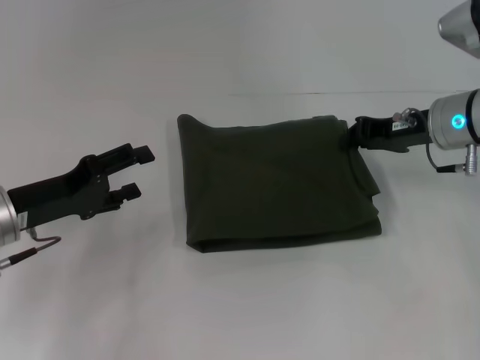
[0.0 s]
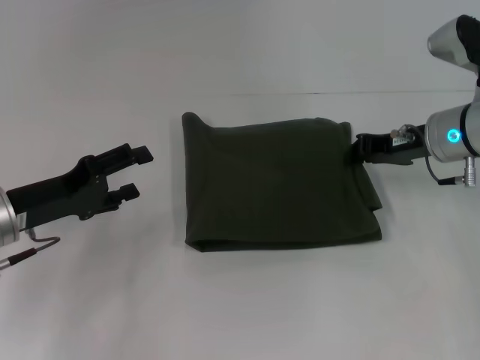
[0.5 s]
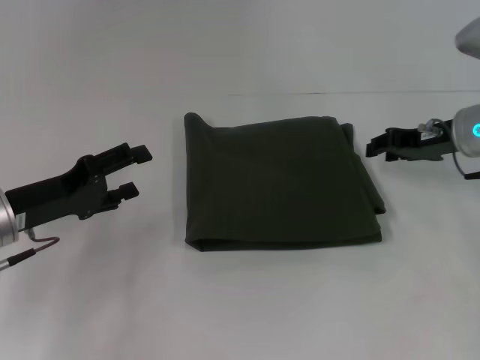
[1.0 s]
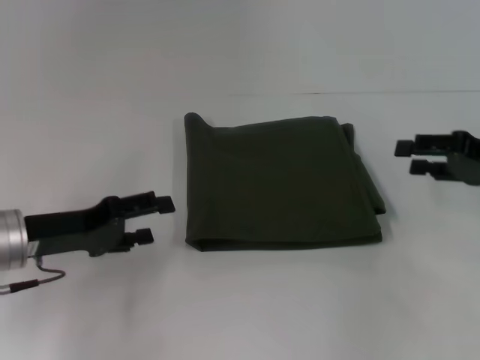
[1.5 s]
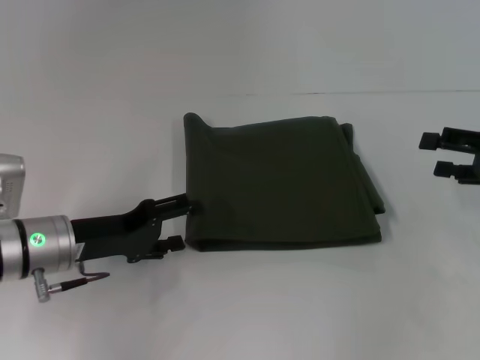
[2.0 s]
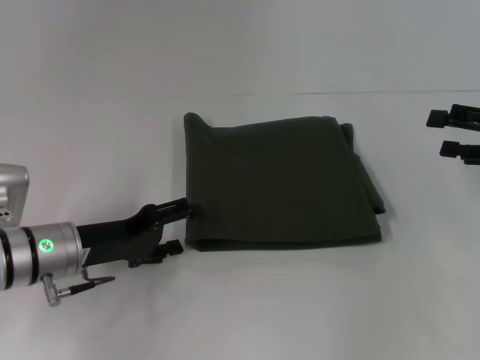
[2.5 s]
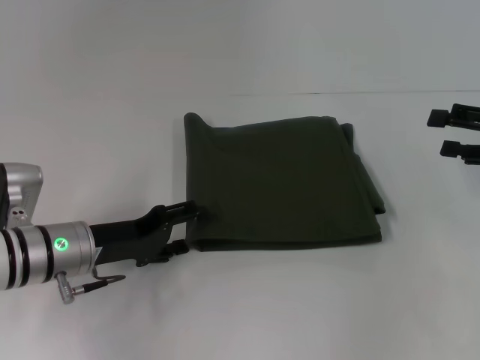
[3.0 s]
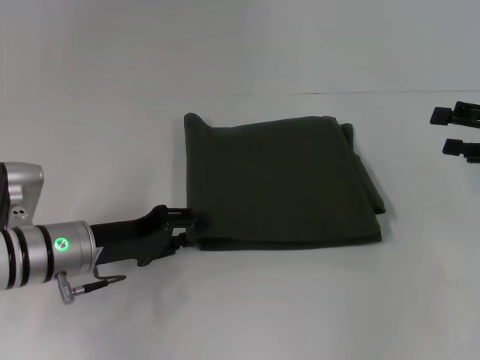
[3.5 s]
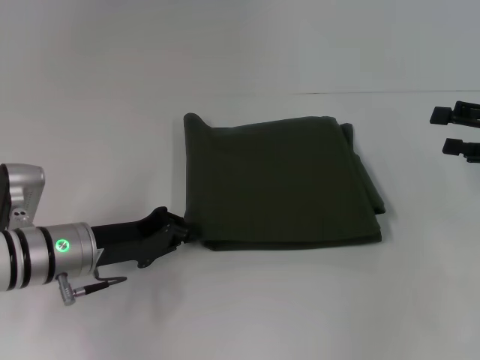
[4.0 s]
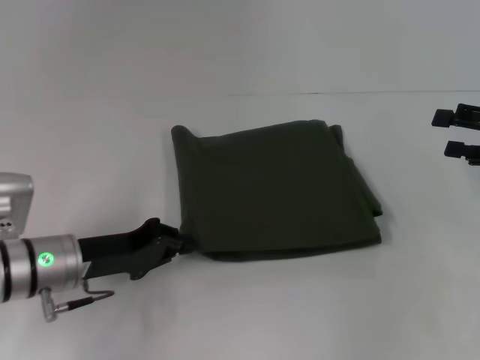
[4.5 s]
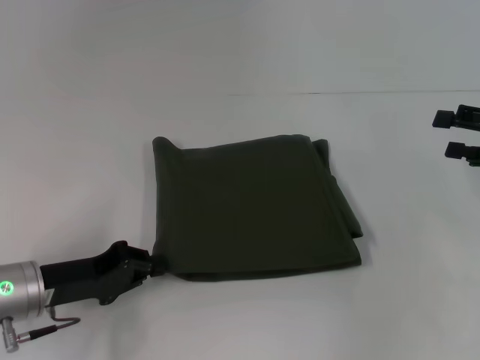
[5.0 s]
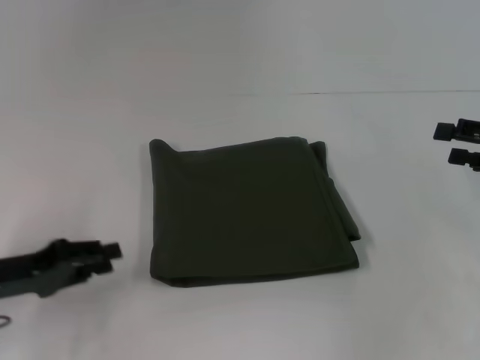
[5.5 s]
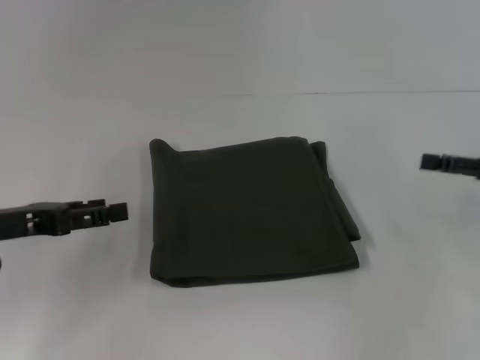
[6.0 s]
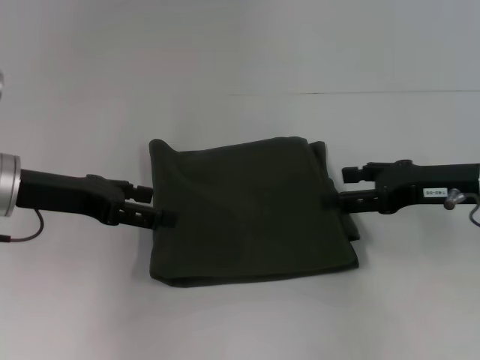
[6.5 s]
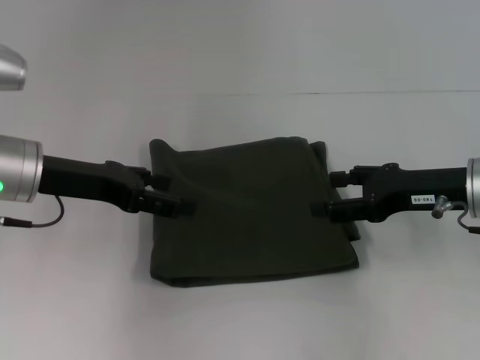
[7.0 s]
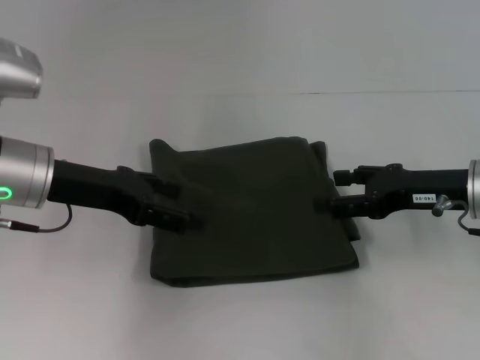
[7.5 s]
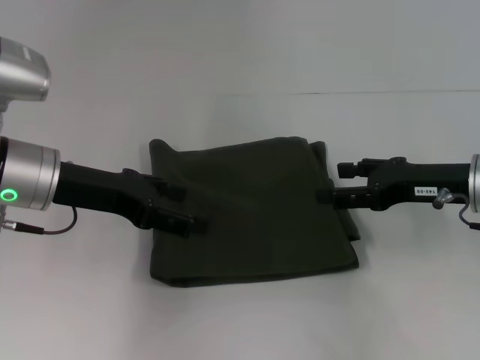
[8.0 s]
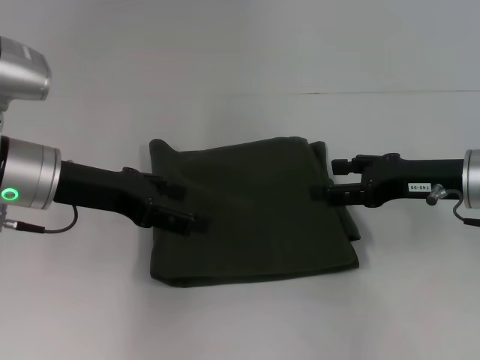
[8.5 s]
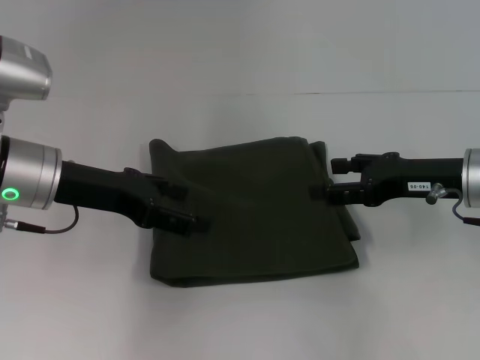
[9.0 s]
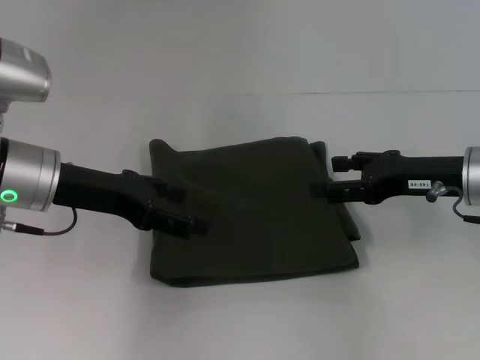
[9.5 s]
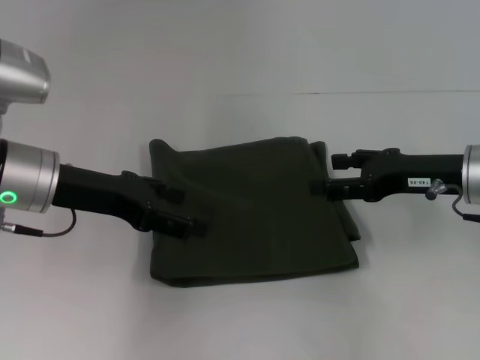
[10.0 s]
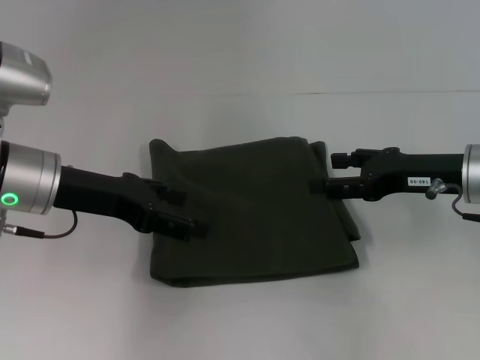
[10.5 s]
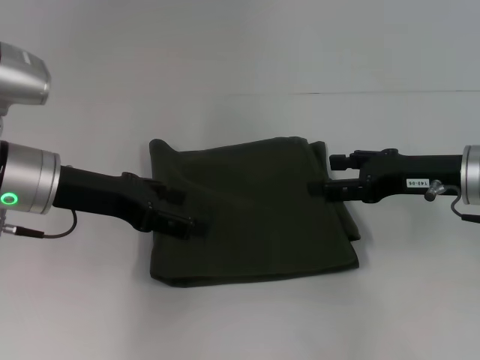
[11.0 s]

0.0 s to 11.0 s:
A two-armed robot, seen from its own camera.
0.0 to 2.0 s: The left gripper shifts by some 5 cm; the right gripper is displaced to the right and backward by approximately 15 cm, and opens.
2.0 to 3.5 s: The left gripper closes its fingers.
3.5 to 5.5 s: The left gripper moves to the left and backward, some 10 cm.
5.5 to 7.5 s: The left gripper travels forward, upward and to the right by about 15 cm, and opens up, while the right gripper moves to the left, about 10 cm.
7.5 to 11.0 s: Neither gripper changes place.

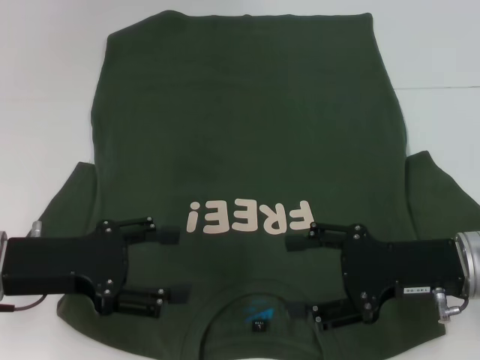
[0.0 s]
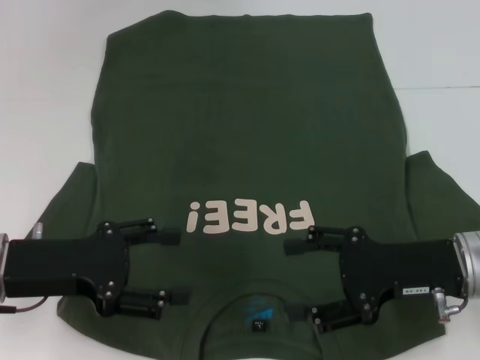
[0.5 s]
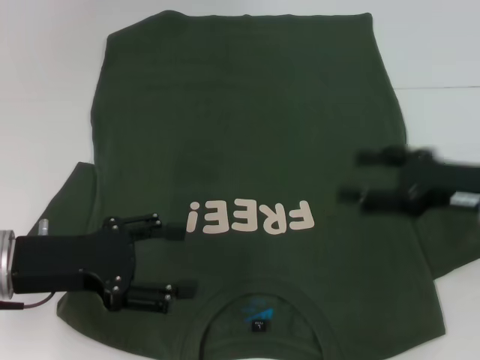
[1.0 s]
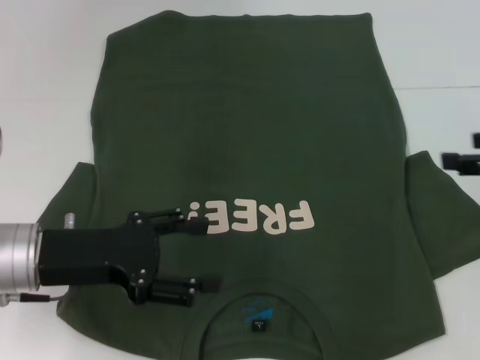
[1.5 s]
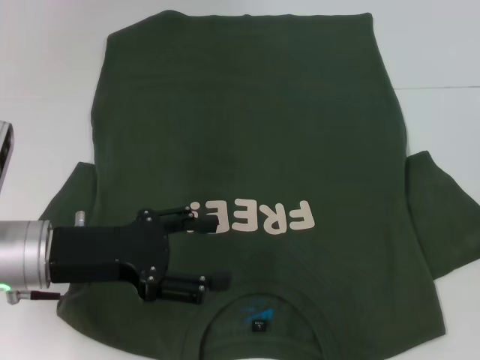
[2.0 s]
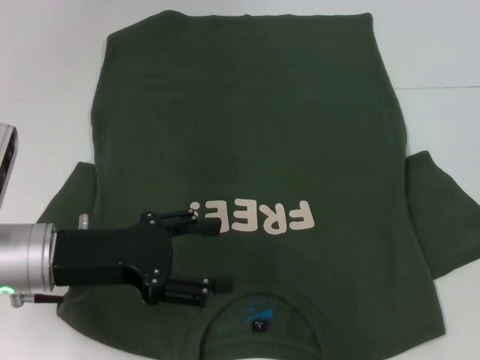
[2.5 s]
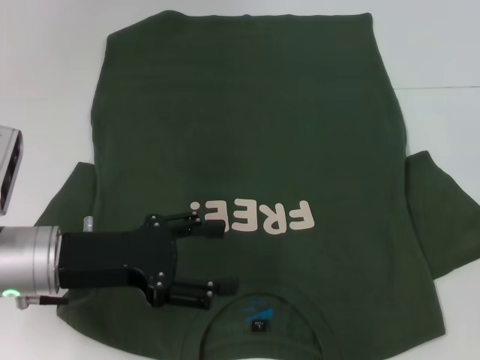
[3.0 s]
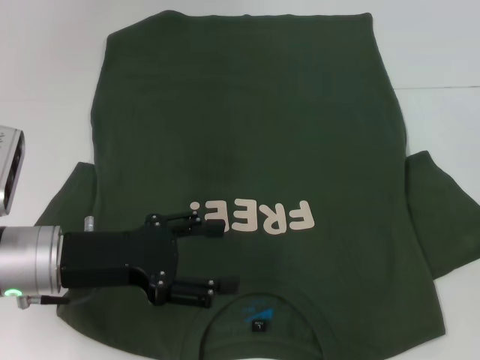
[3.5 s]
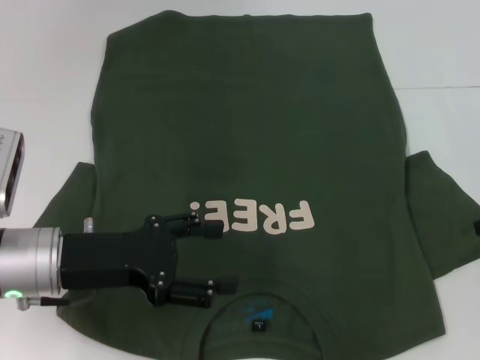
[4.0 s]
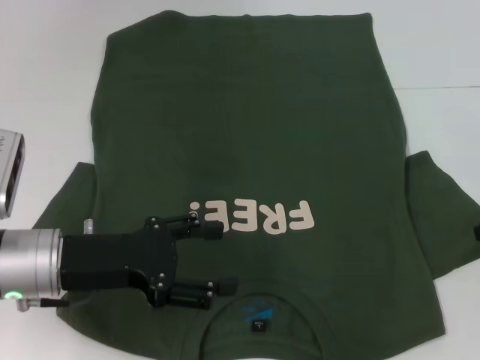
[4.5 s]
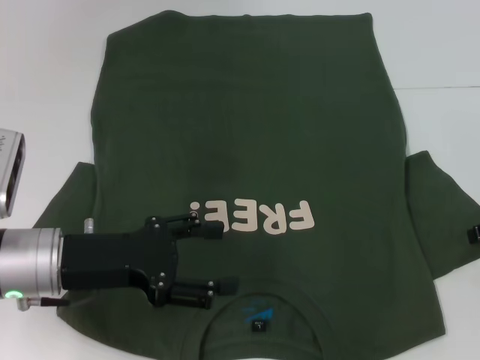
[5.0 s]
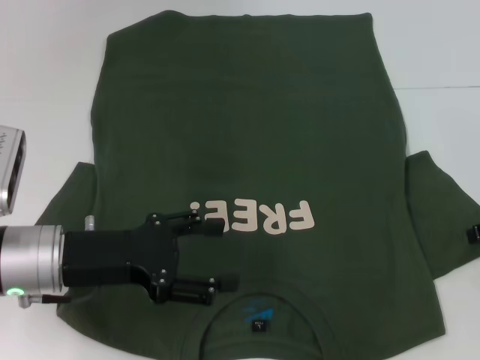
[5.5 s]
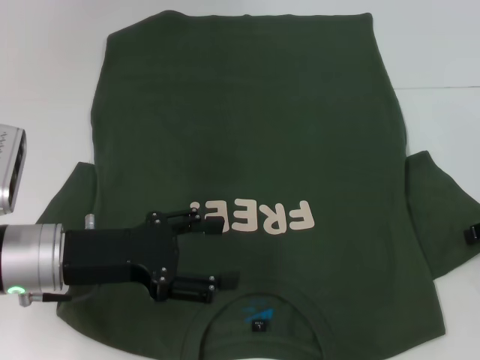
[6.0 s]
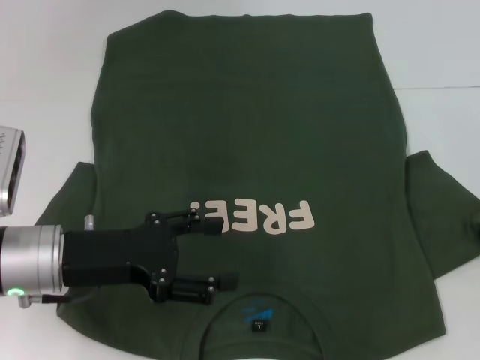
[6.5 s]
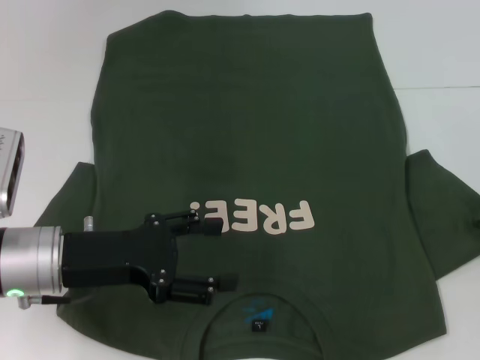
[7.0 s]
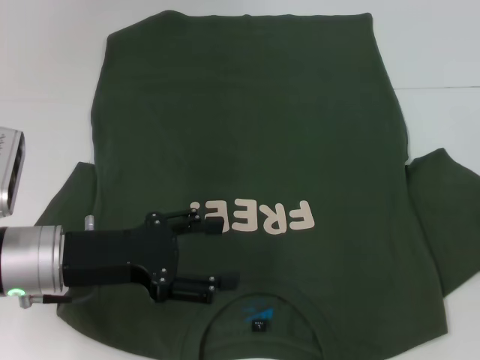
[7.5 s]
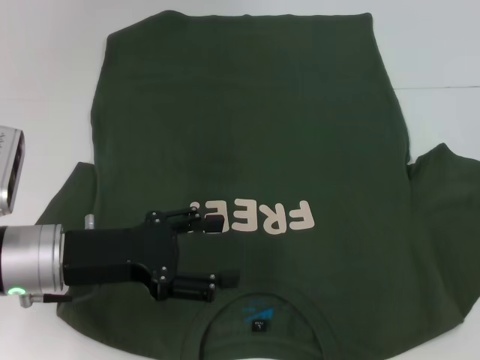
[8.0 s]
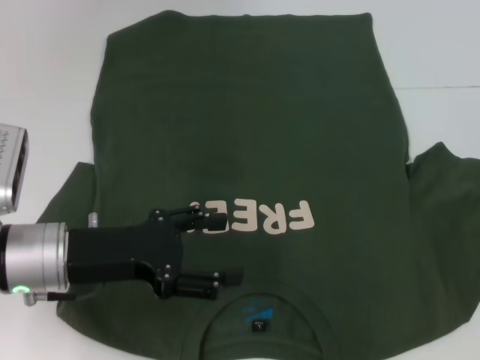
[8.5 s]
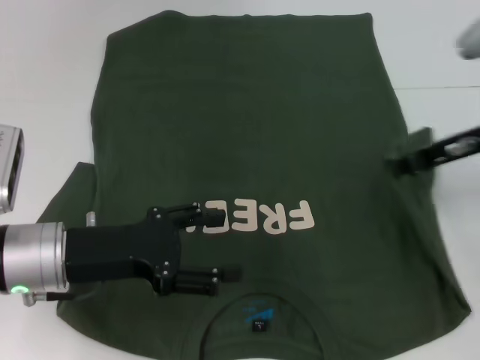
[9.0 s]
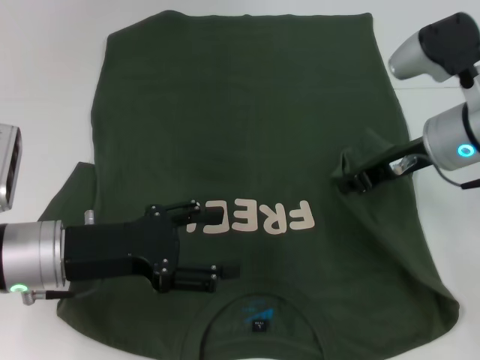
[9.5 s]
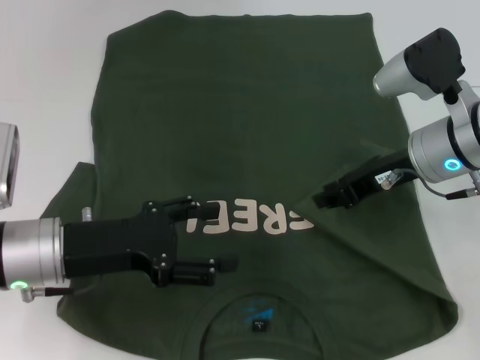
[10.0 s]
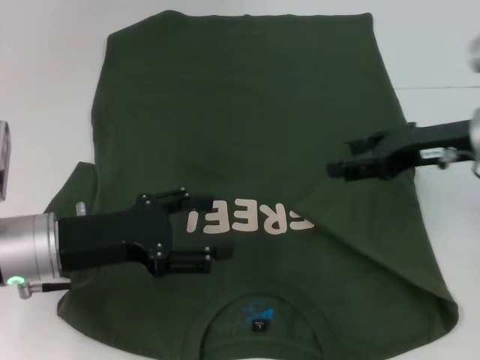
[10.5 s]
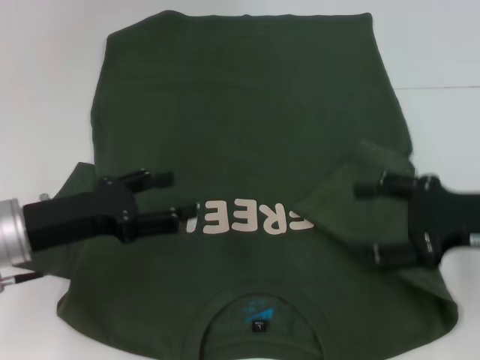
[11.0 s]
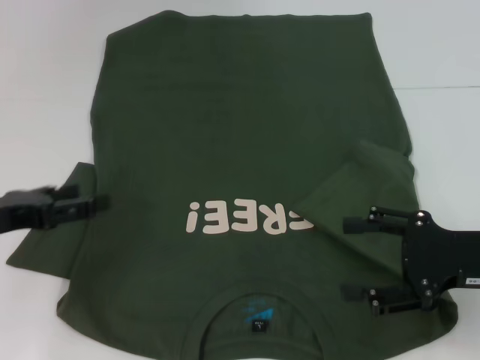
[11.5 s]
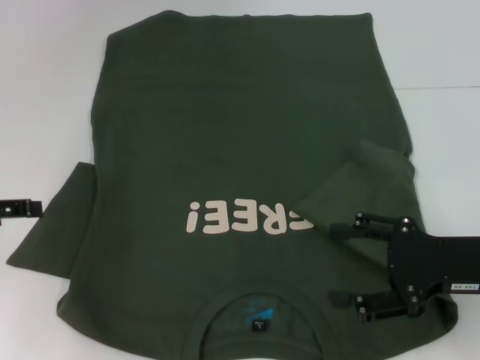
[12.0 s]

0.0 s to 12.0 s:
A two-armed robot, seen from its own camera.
Step, 0.0 to 10.5 s: Fold the bottom right sleeve with your right hand.
0.0 to 2.0 s: The right gripper heads to the right and upward, covering some 15 cm.
4.0 to 6.0 s: Both grippers stay about where they are.
6.0 to 8.0 s: The right gripper closes.
8.0 to 10.0 s: The right gripper goes about 20 cm to the left.
10.0 to 12.0 s: The left gripper shifts about 15 cm to the left and upward. Meanwhile the right gripper moves backward and to the right, approximately 15 cm, and opens its fingers.

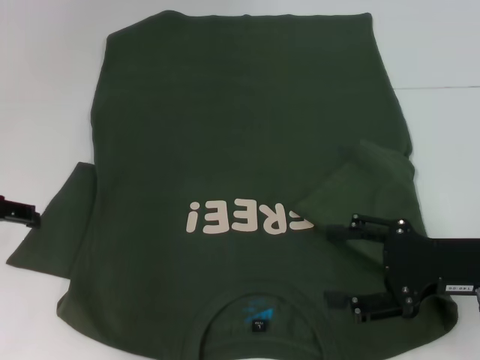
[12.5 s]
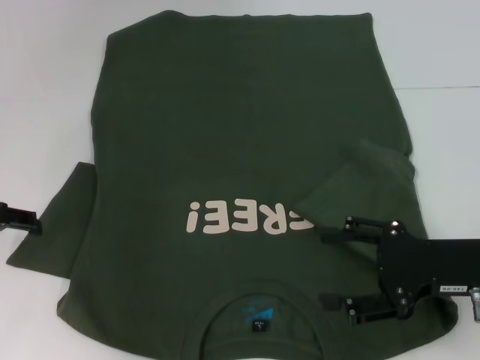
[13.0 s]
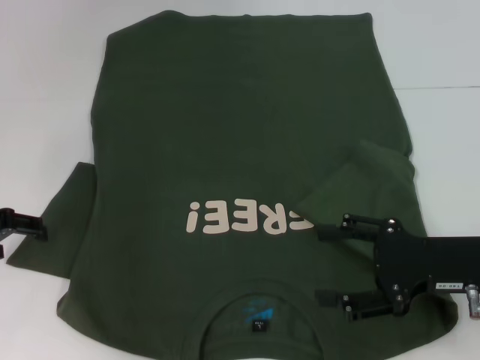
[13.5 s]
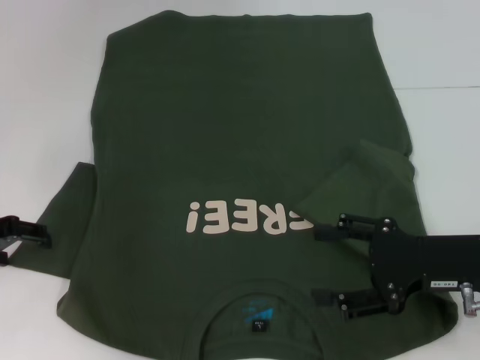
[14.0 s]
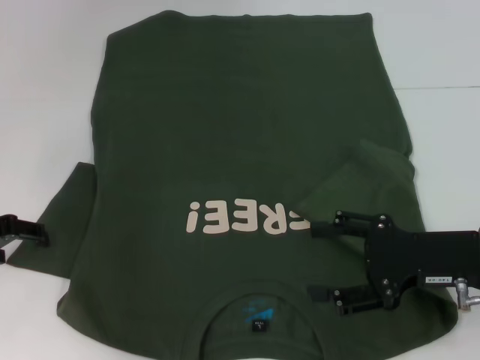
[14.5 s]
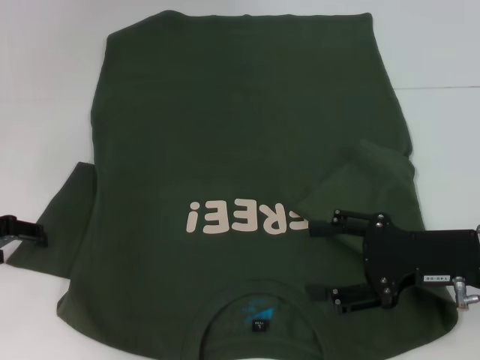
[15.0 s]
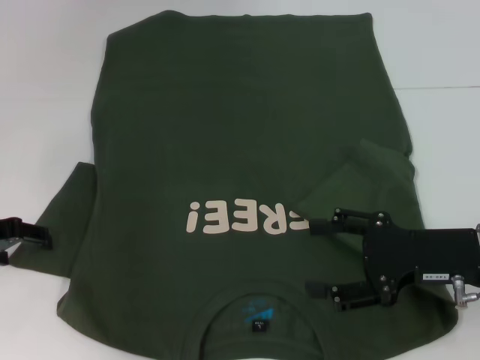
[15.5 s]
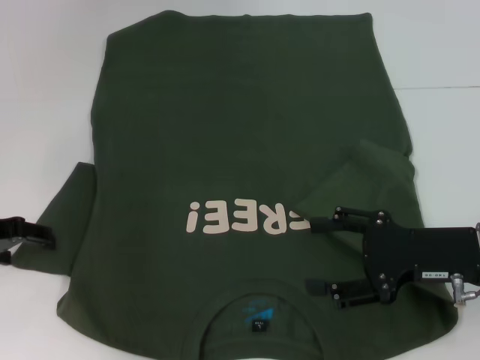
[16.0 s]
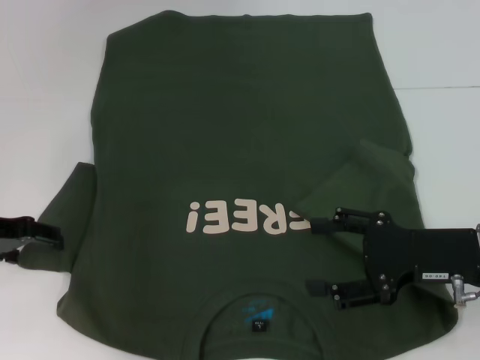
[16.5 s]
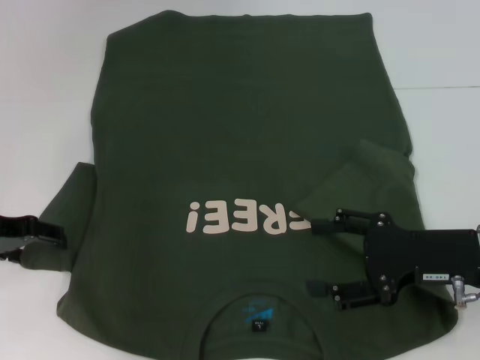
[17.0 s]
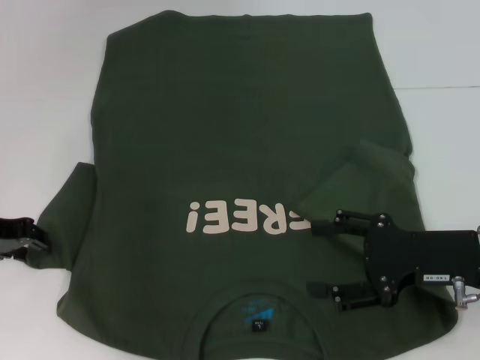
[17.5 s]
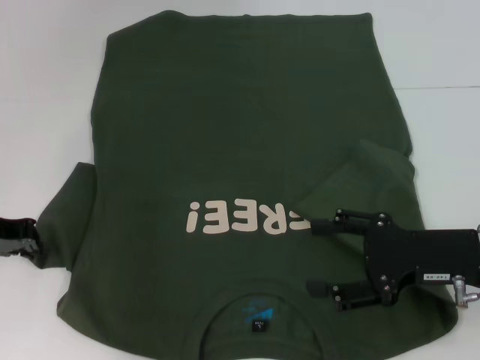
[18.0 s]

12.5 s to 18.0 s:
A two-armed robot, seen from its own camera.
12.5 to 14.5 s: The grippers make only small movements.
14.5 to 16.0 s: The two grippers keep their place.
16.0 to 18.0 s: The left gripper closes.
